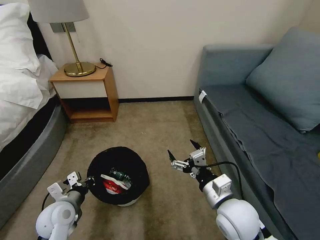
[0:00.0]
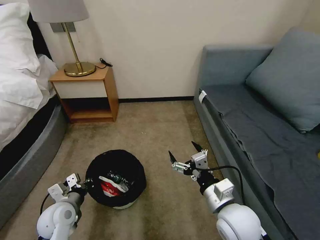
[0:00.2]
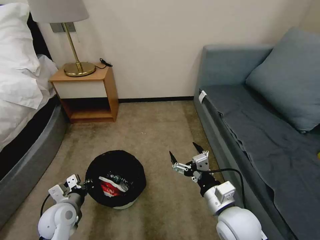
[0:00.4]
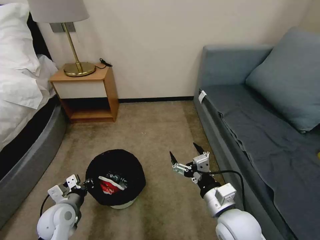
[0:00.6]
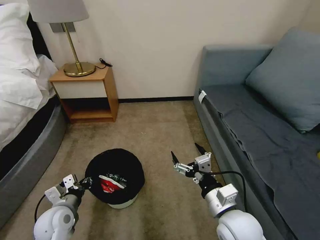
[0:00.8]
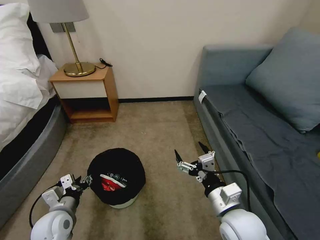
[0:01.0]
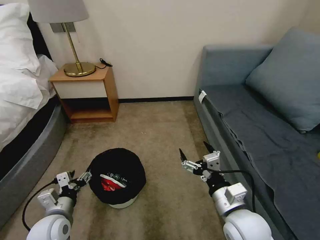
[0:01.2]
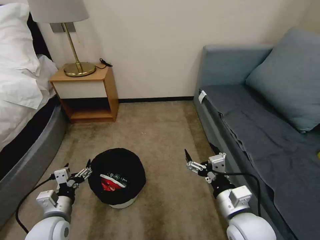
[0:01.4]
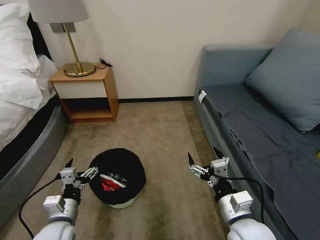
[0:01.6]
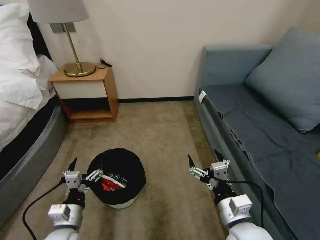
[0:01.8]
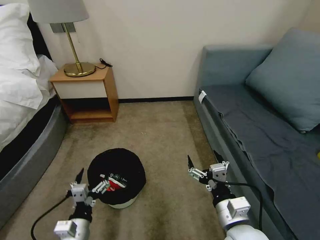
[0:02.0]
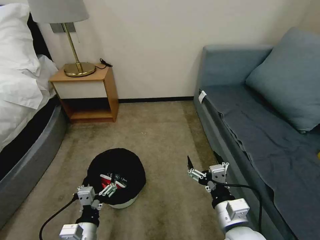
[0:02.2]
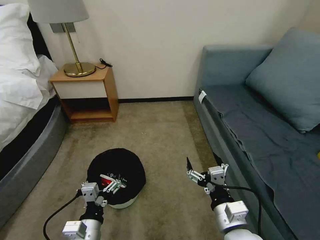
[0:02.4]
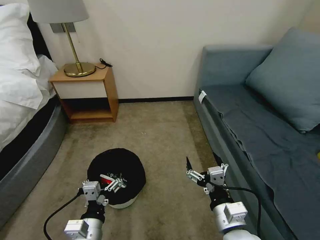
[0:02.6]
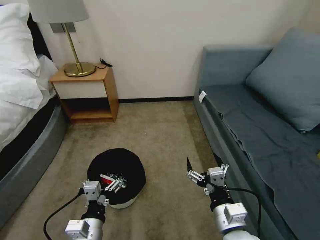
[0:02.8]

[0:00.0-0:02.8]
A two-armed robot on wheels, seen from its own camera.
Task of the whole recording: Pick up the trash bin, then pick up the garbage on the floor and place it into the trash bin.
0:00.0 to 0:01.4: The left gripper opens.
0:01.4 to 0:02.8: The left gripper is displaced to the right and backward by roughly 15 cm.

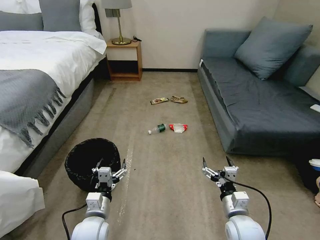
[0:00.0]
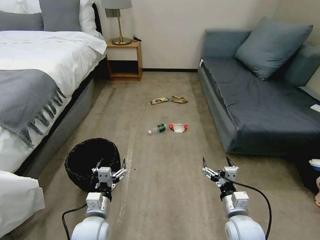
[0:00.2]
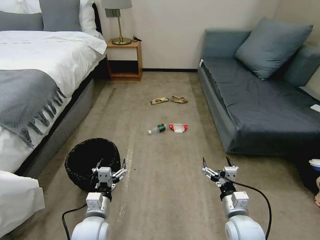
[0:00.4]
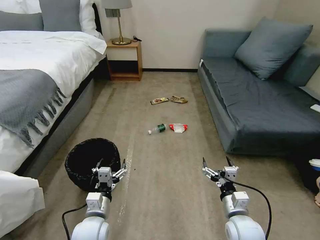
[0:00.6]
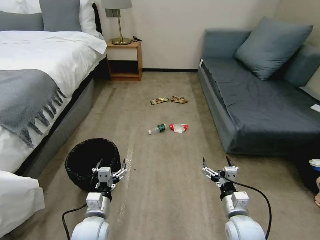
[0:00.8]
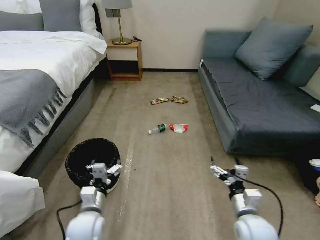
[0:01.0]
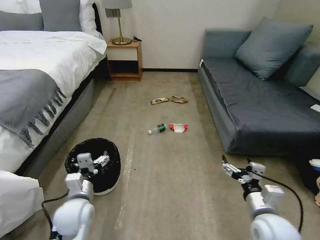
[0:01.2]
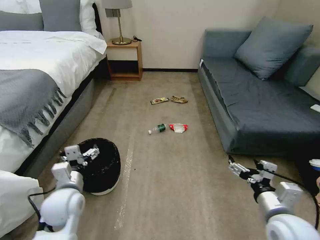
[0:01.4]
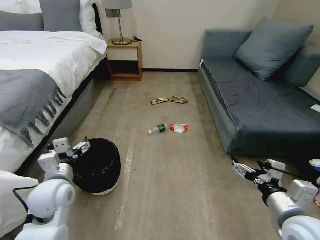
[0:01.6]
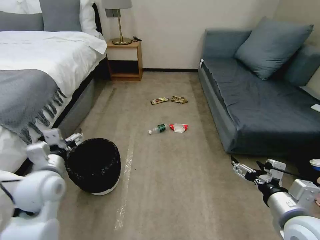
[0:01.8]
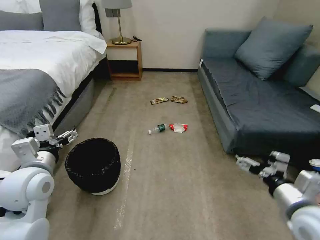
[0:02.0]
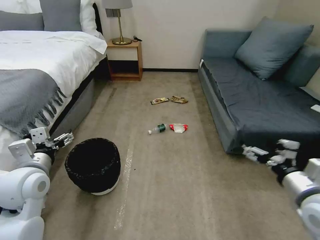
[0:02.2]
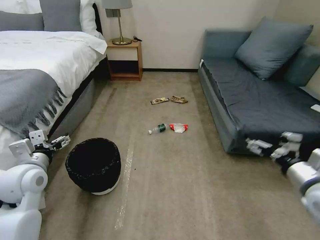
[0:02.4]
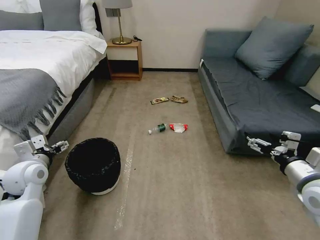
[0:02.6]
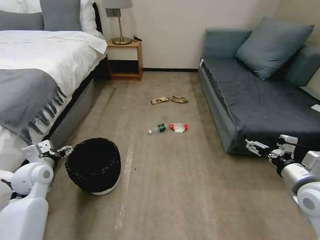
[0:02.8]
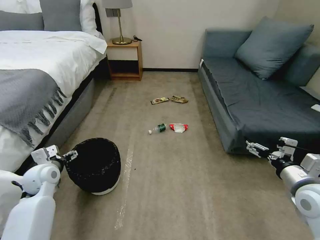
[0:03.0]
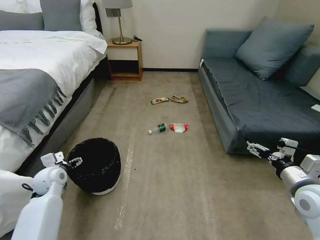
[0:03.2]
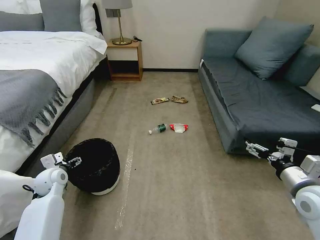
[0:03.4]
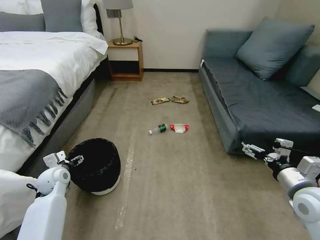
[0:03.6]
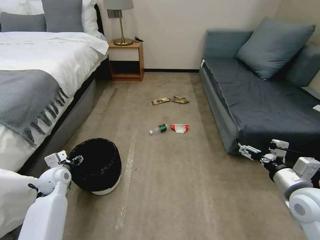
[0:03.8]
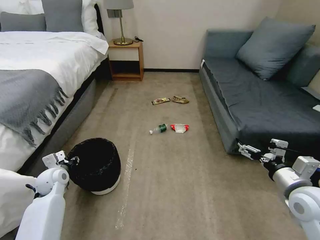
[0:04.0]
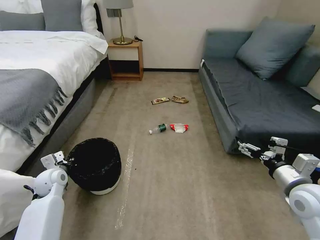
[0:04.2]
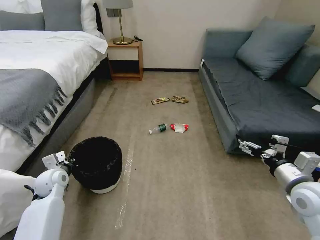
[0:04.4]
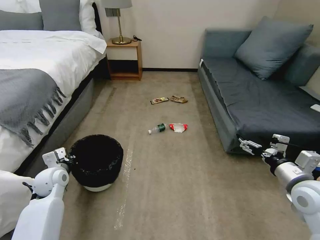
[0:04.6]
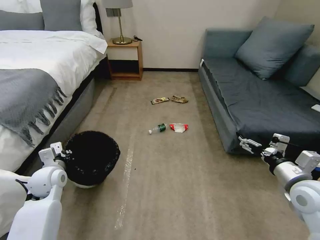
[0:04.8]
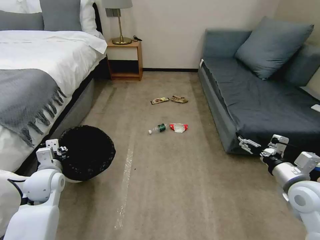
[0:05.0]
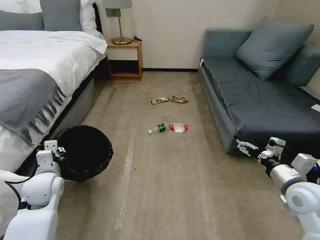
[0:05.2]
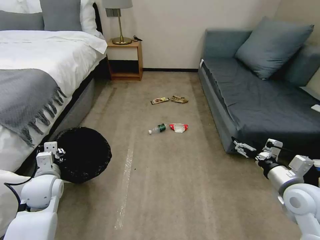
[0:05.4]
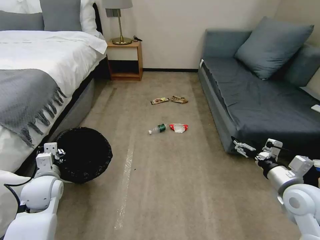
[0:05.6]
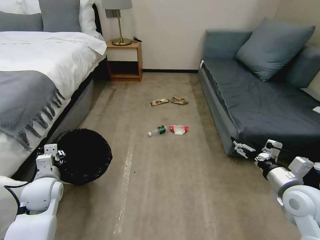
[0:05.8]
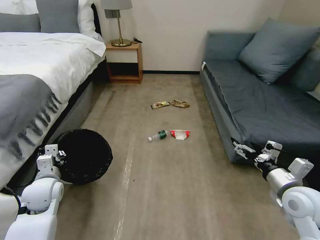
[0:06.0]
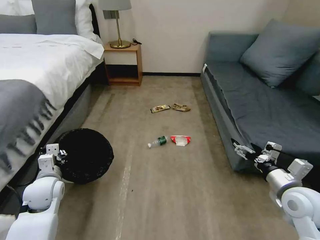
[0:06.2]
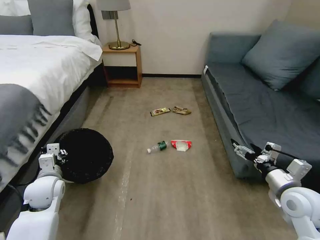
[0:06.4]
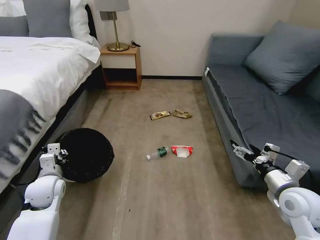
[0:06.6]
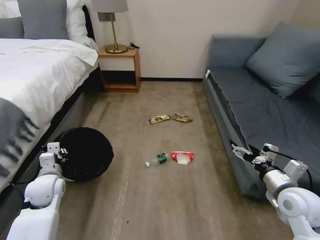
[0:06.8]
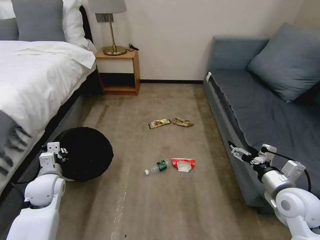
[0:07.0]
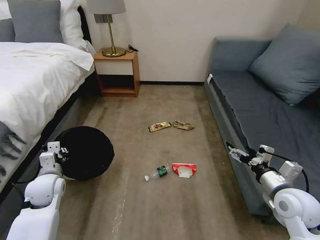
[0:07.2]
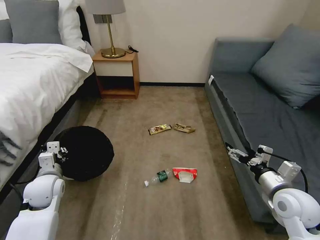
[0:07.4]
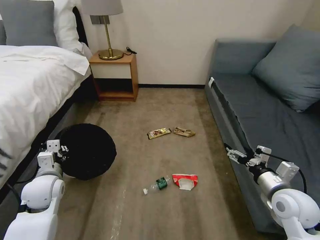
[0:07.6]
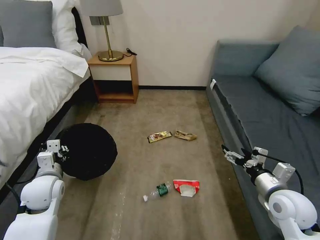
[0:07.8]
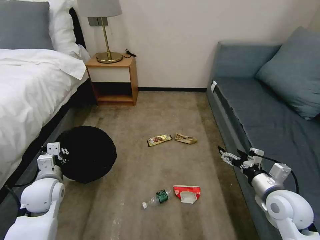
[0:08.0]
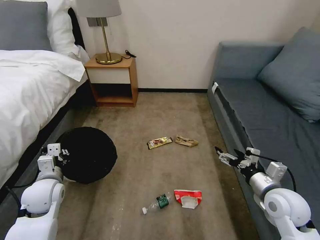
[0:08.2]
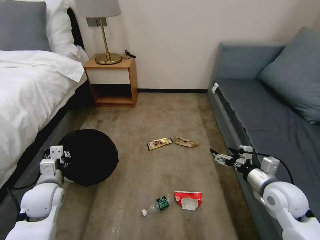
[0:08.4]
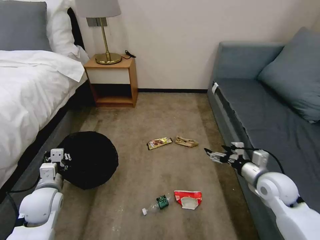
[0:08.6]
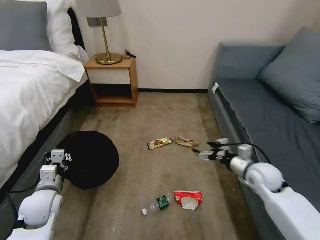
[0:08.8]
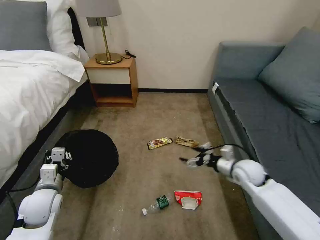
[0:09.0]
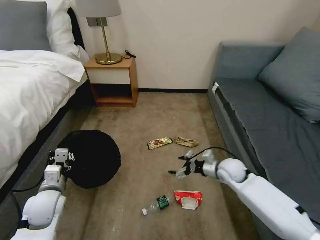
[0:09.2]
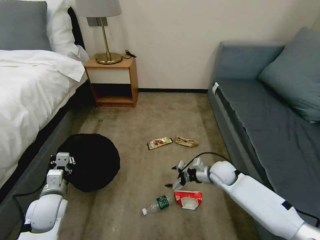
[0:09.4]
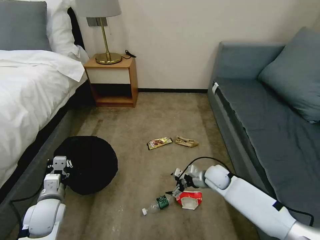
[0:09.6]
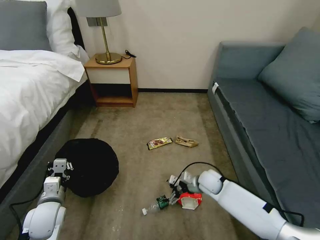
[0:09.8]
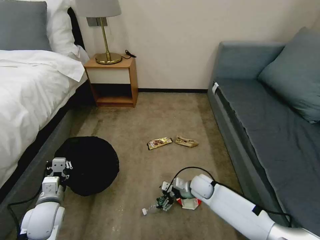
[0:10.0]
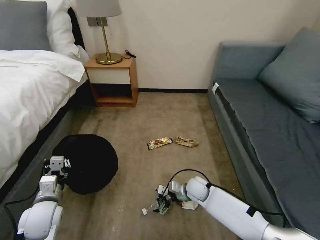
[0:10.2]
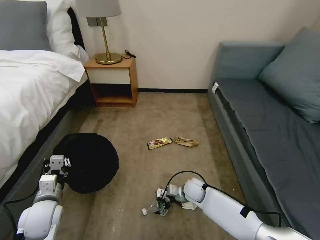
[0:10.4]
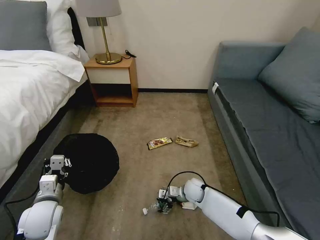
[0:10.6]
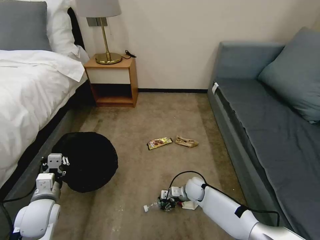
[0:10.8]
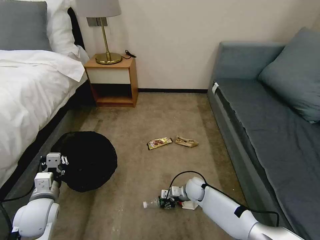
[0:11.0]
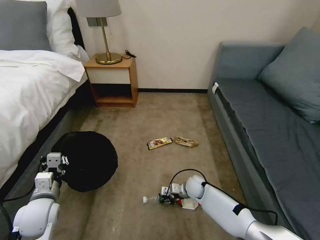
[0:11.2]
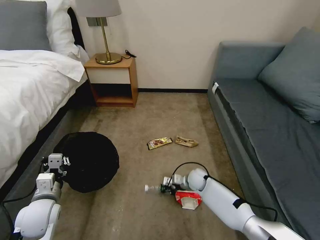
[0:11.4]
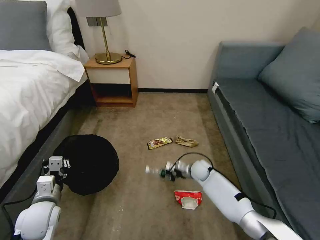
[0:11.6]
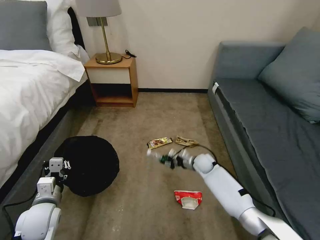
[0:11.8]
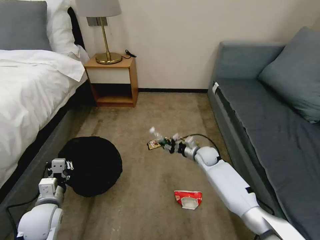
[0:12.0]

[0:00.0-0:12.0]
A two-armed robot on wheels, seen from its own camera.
Task of the whole recording: Pick up the trash bin, then pick up the garbage on the floor and place it into the trash bin.
0:01.6 to 0:03.0: The left gripper heads to the left and forward, covering some 15 cm, while the right gripper shifts approximately 10 cm to the right and forward.
0:03.0 to 0:04.4: The left gripper travels downward by about 5 cm, and closes its fingers.
0:04.4 to 0:06.0: The left gripper travels backward by roughly 5 cm.
0:07.6 to 0:09.0: The right gripper shifts some 15 cm forward and downward.
0:09.0 to 0:10.4: The right gripper travels to the left and downward by roughly 20 cm.
0:10.4 to 0:12.0: The right gripper shifts some 15 cm forward, upward and to the right, and closes its fingers.

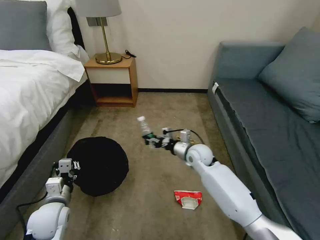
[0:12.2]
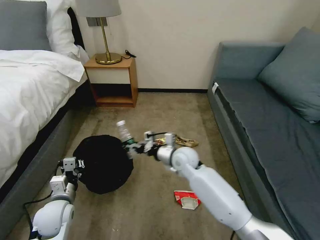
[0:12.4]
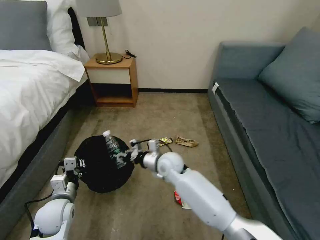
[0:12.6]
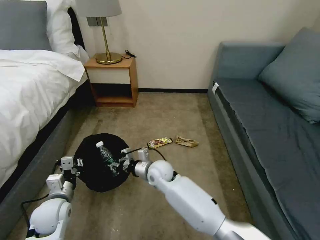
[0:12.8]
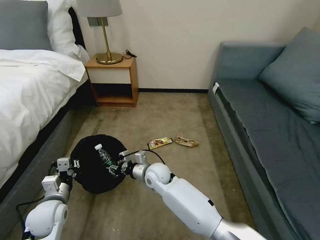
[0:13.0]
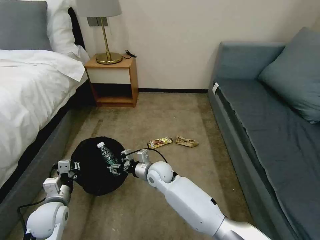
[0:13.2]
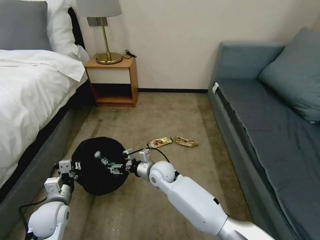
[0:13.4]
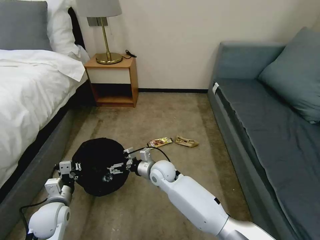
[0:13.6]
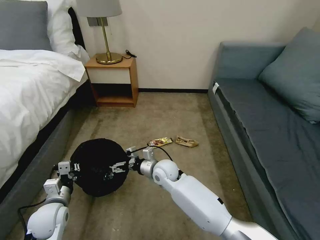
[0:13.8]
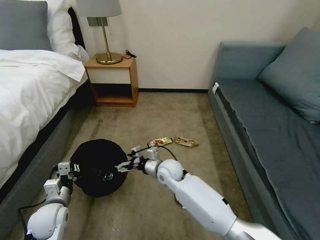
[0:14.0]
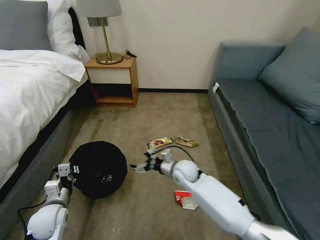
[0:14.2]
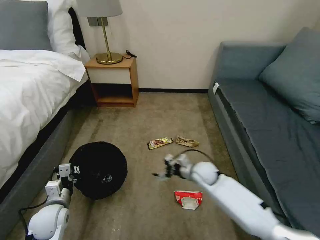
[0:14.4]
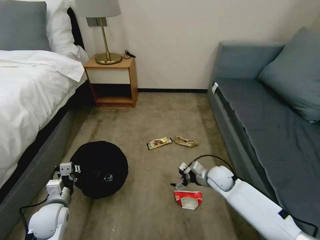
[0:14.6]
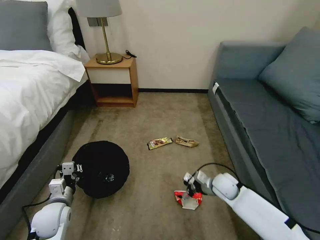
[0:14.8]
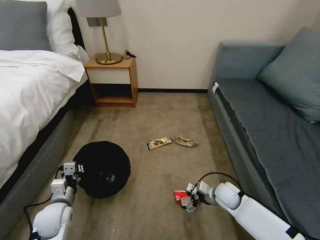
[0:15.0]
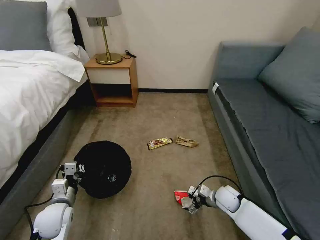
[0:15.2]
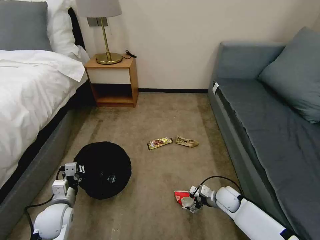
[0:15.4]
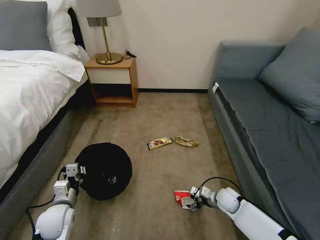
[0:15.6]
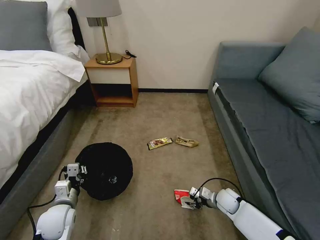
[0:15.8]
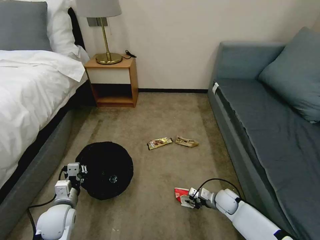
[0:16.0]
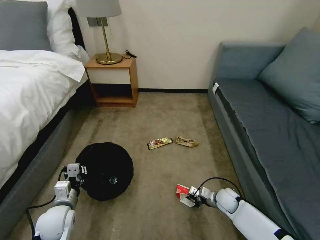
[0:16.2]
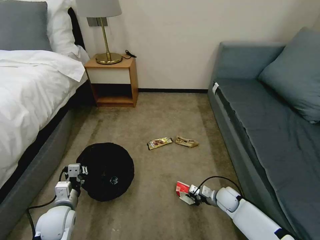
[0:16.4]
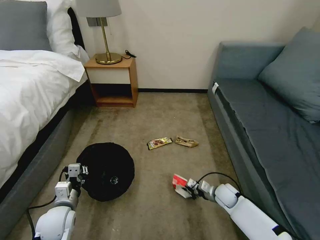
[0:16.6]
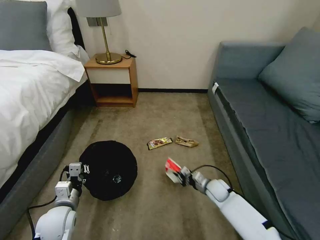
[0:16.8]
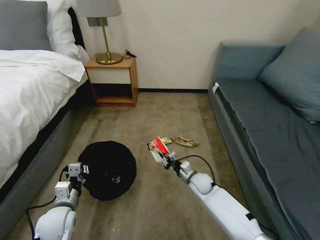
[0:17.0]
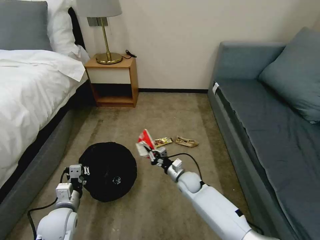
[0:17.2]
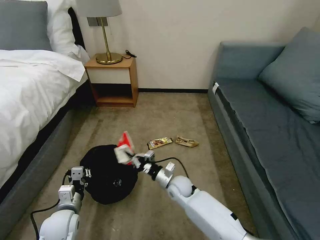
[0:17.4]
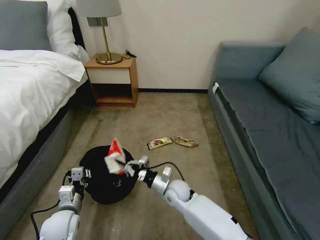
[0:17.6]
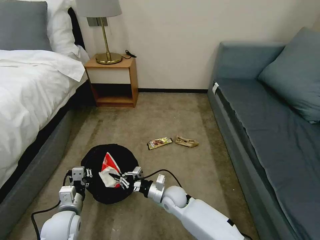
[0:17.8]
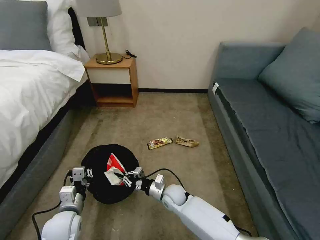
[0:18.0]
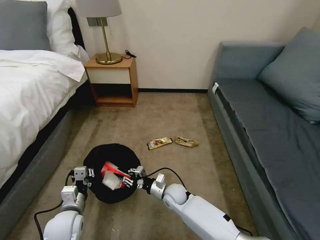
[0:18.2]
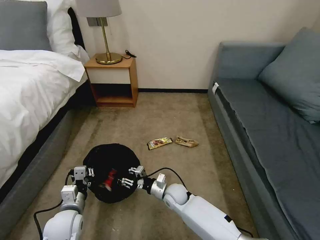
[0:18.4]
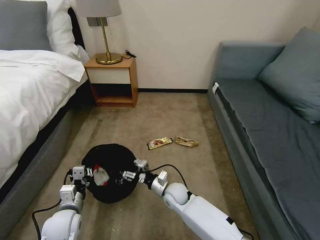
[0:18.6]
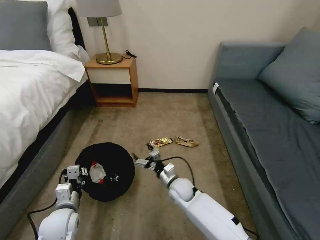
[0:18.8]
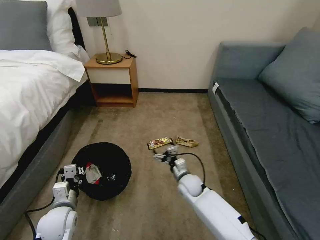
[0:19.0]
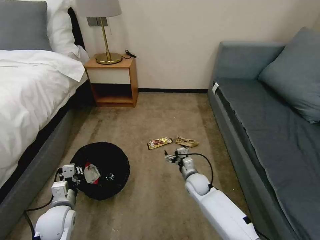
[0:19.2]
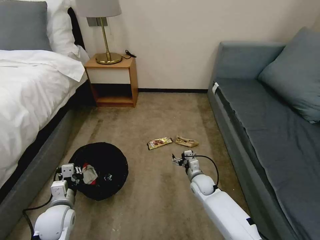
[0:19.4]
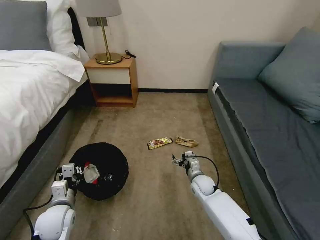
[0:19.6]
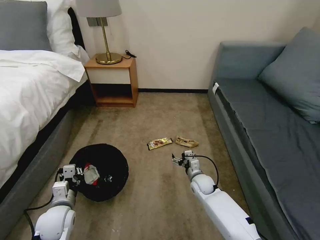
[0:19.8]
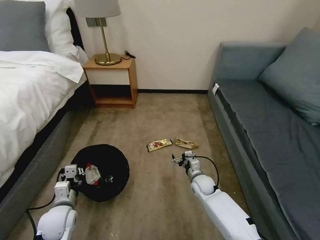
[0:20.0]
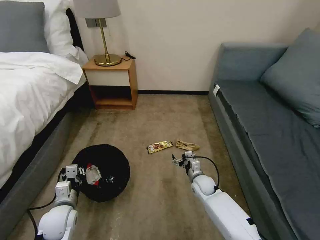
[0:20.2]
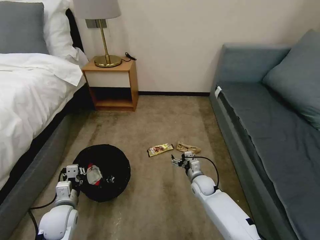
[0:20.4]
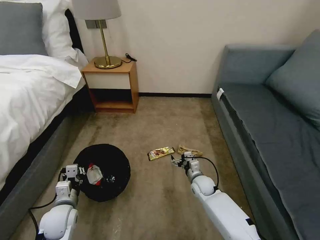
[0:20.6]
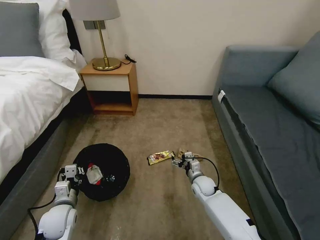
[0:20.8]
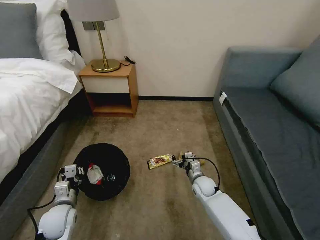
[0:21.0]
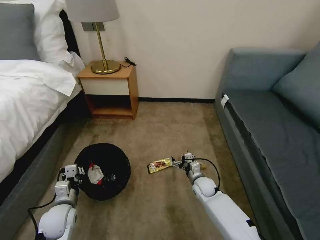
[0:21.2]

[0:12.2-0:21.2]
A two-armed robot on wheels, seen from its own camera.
Task of the whole recording: Pick up the trash bin, then pick up the garbage on the floor and place it into the trash bin.
0:12.2 to 0:13.8: The right gripper shifts some 15 cm to the left, and opens its fingers.
0:13.8 to 0:15.2: The right gripper travels to the right and downward by approximately 30 cm.
0:15.2 to 0:16.6: The right gripper closes its fingers.
0:16.6 to 0:18.2: The right gripper shifts roughly 25 cm to the left.
0:18.2 to 0:19.8: The right gripper moves to the right, about 10 cm, and opens its fingers.
